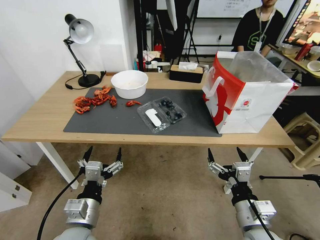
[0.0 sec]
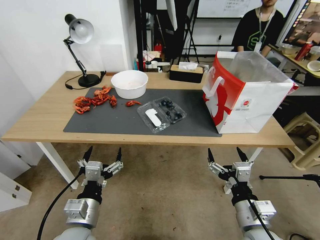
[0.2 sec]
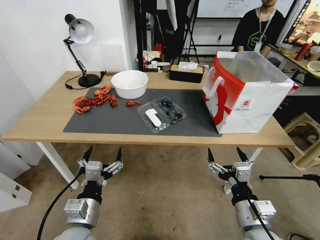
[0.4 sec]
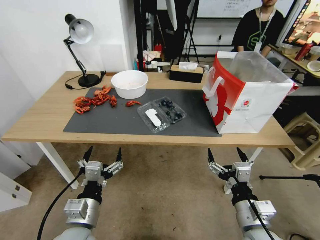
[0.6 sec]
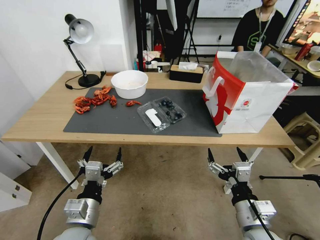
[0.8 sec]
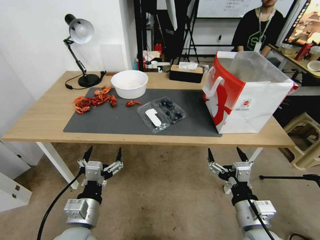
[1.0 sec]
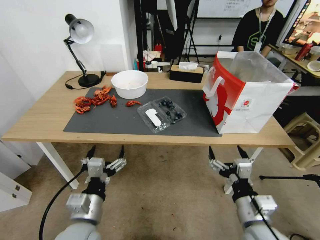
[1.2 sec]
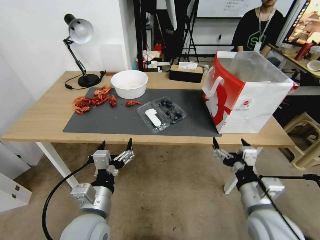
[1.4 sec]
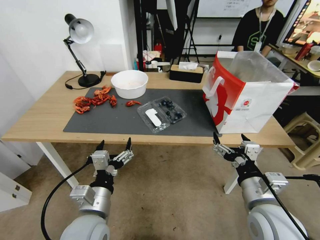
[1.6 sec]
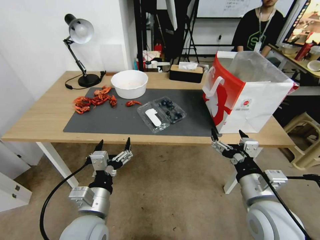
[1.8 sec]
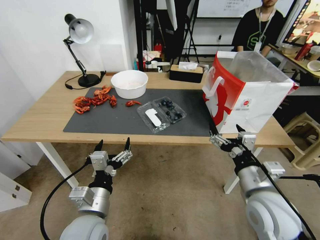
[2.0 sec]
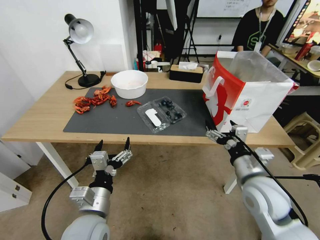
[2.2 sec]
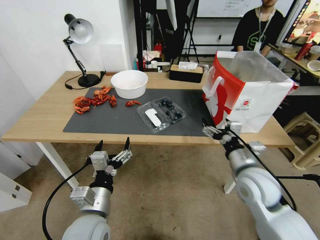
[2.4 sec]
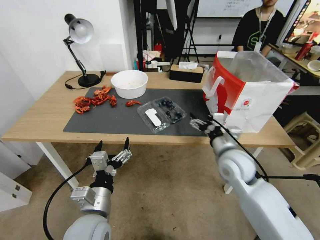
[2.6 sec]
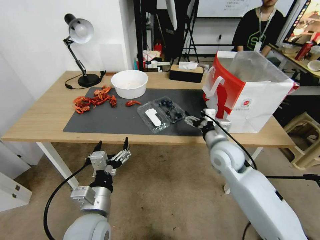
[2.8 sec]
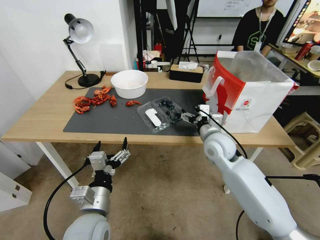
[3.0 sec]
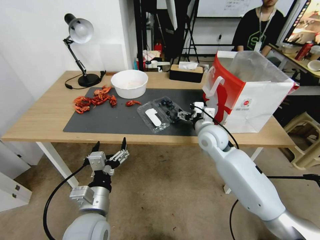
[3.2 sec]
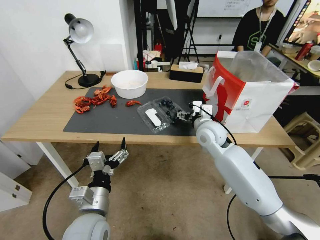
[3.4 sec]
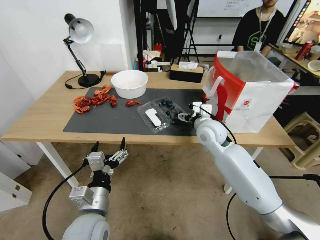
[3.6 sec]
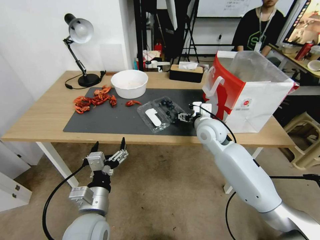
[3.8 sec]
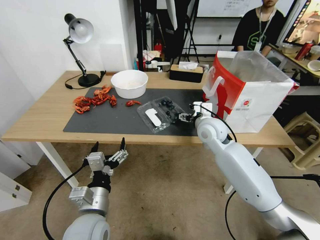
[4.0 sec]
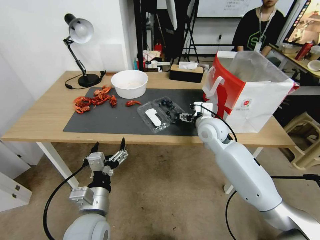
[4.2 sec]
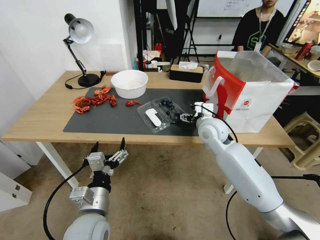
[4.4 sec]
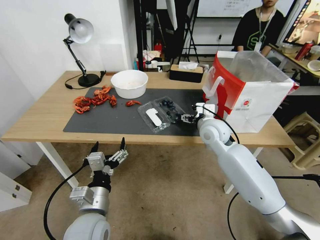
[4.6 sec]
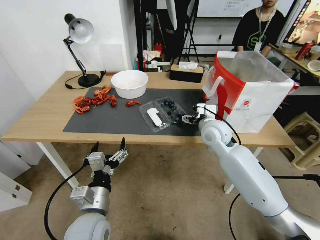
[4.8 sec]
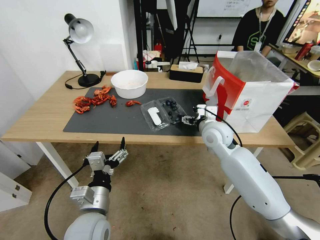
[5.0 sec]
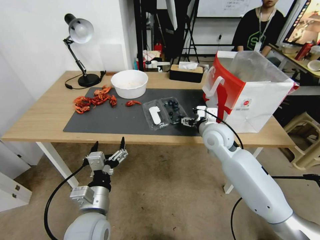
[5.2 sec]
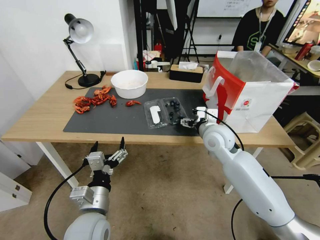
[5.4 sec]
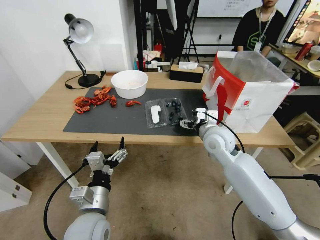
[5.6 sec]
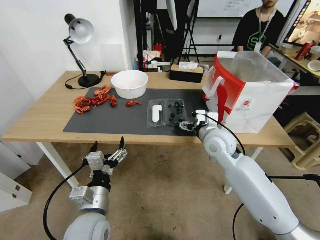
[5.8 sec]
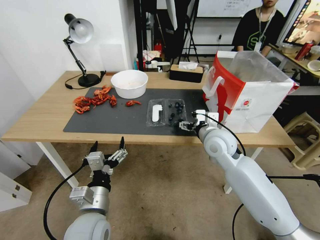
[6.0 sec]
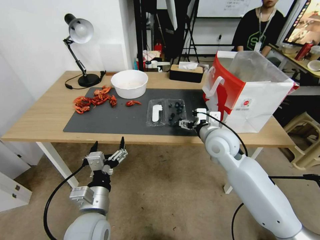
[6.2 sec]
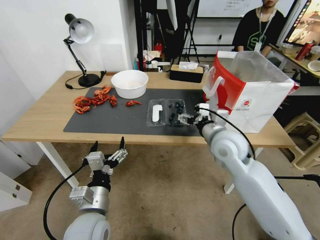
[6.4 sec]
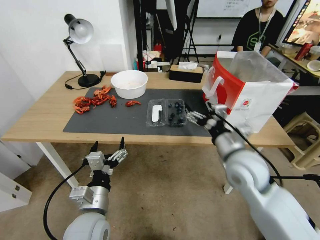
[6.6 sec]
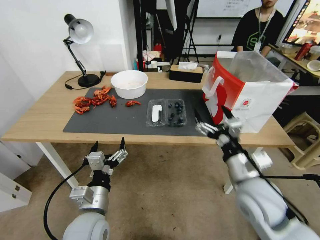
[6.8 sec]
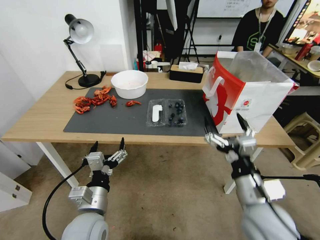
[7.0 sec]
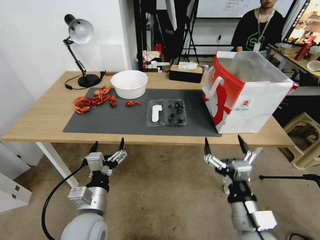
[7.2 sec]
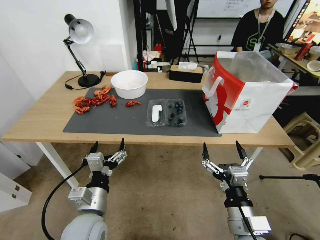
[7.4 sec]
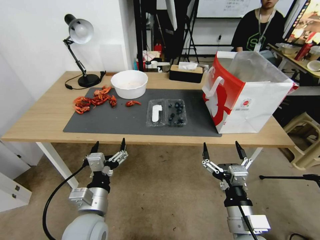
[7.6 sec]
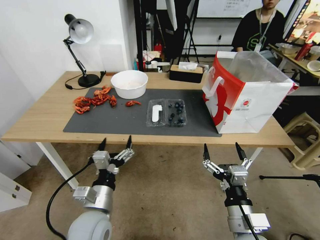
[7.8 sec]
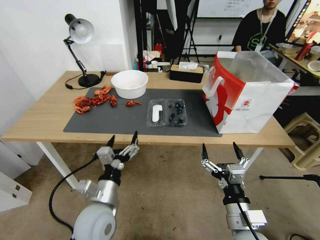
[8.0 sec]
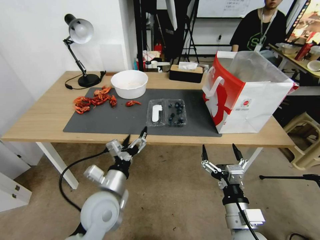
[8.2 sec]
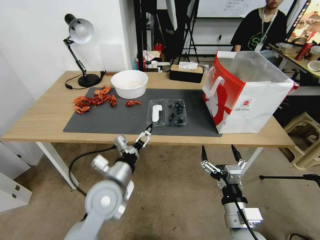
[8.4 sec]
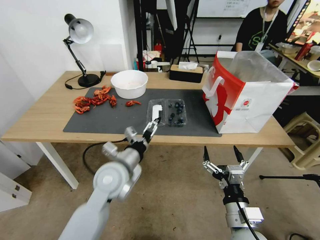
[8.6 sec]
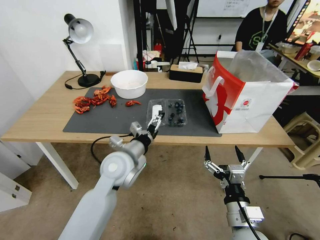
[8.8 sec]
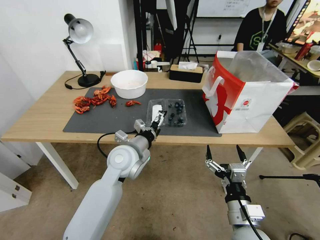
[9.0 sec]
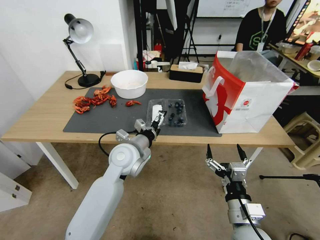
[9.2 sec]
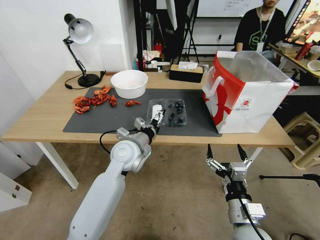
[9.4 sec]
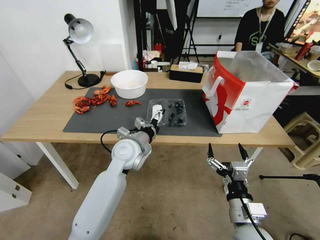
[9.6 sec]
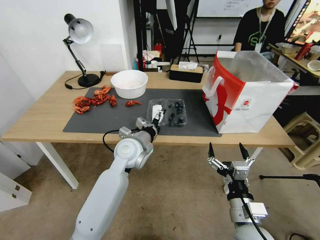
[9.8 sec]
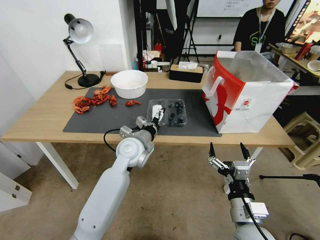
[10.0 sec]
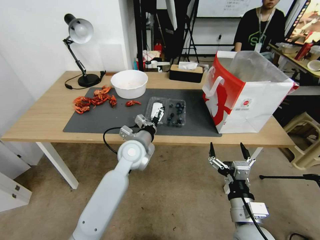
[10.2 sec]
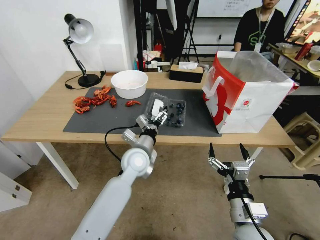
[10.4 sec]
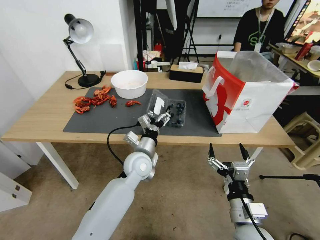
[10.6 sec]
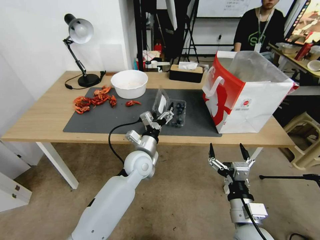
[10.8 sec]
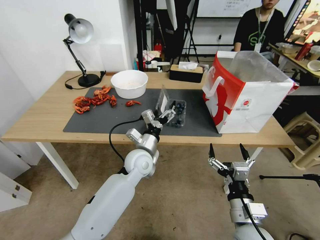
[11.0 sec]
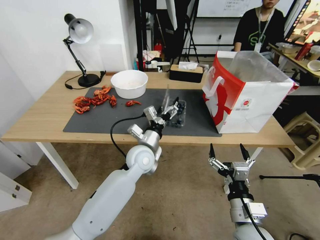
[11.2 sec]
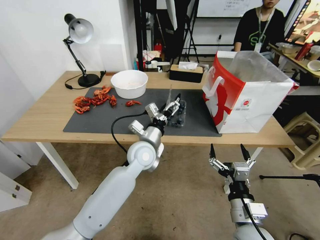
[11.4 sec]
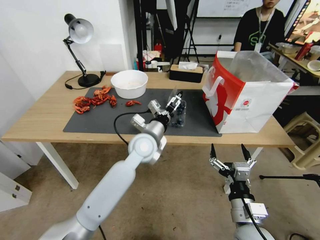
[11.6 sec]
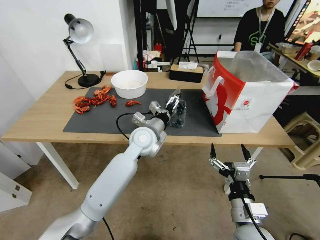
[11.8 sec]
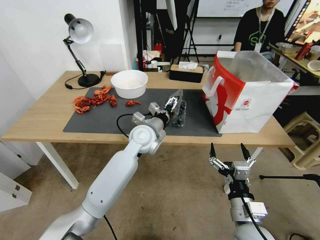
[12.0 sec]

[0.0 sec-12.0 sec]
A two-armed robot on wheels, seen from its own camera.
Task of the whole recording: Close the takeout container lid, then place the container into the takeout bag.
1.6 sec to 3.0 sec: The right gripper moves forward, roughly 20 cm.
3.0 sec to 4.4 sec: The right gripper travels forward by about 5 cm.
4.4 sec to 6.0 sec: The right gripper is displaced backward by approximately 5 cm.
6.0 sec to 7.6 sec: The right gripper heads backward, covering roughly 25 cm.
7.6 sec to 9.0 sec: The left gripper goes approximately 20 cm forward and to the right.
9.0 sec to 10.4 sec: The left gripper changes place by about 5 cm.
10.4 sec to 12.0 sec: The left gripper moves forward, roughly 5 cm.

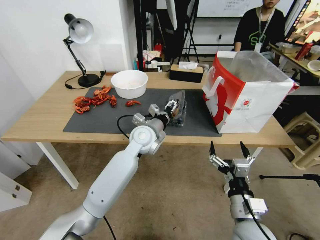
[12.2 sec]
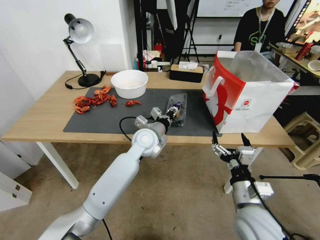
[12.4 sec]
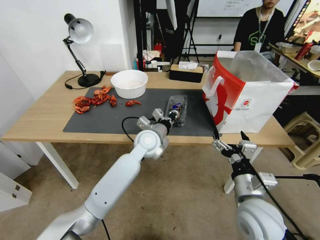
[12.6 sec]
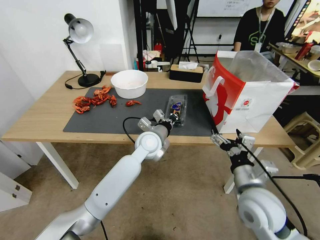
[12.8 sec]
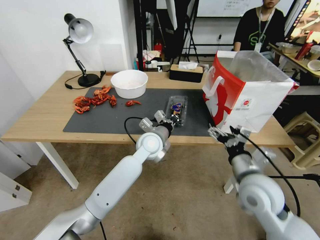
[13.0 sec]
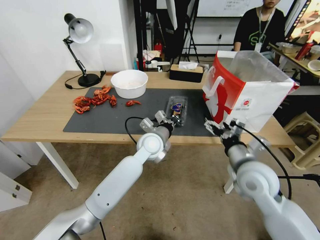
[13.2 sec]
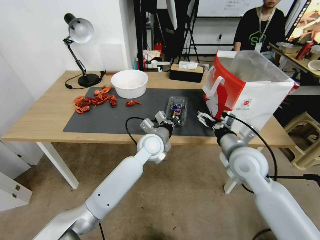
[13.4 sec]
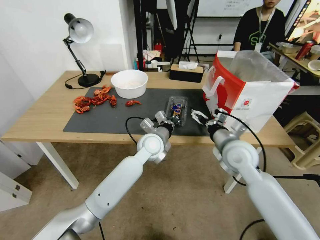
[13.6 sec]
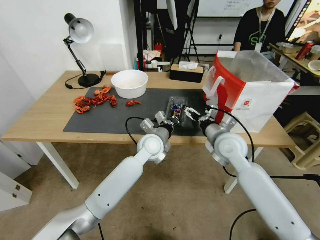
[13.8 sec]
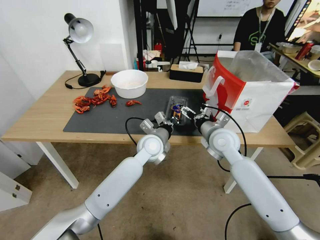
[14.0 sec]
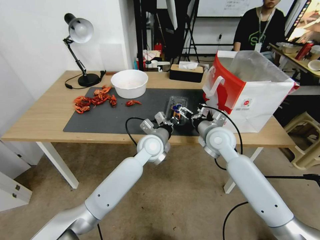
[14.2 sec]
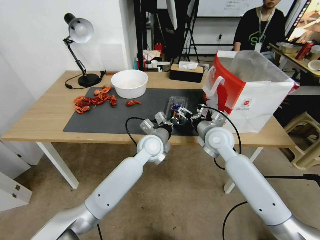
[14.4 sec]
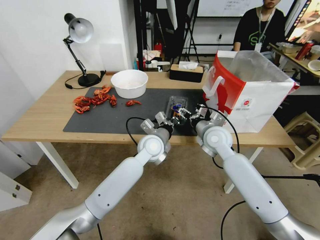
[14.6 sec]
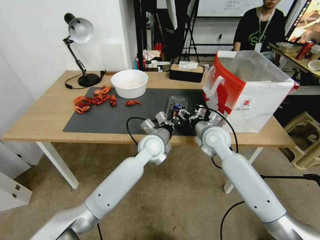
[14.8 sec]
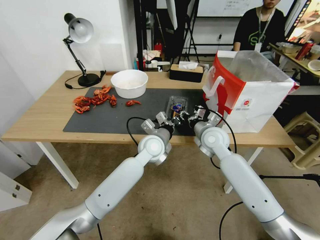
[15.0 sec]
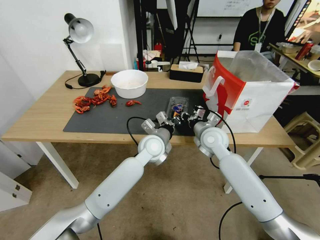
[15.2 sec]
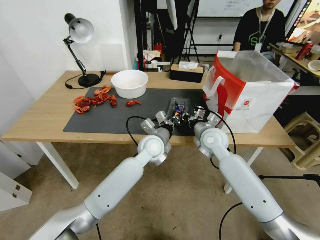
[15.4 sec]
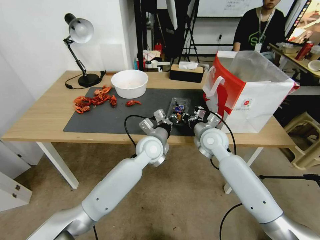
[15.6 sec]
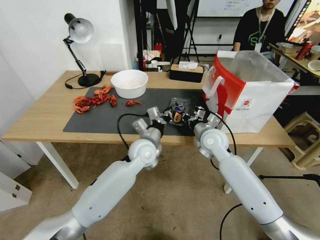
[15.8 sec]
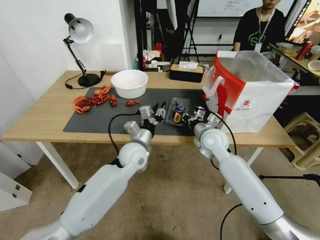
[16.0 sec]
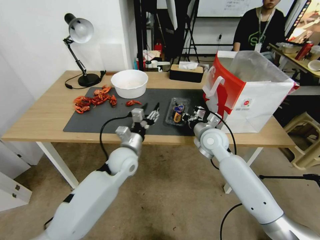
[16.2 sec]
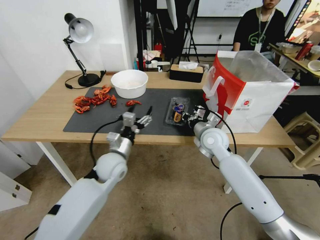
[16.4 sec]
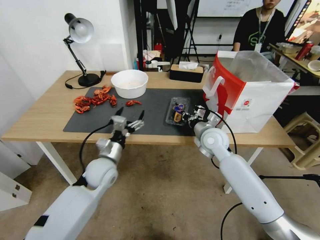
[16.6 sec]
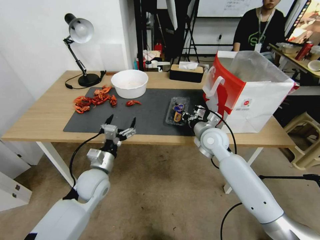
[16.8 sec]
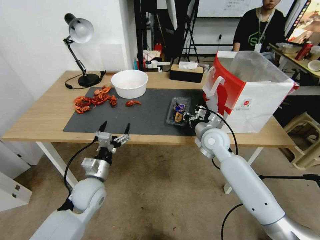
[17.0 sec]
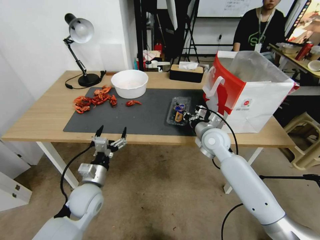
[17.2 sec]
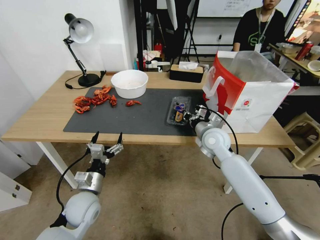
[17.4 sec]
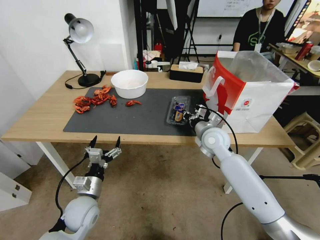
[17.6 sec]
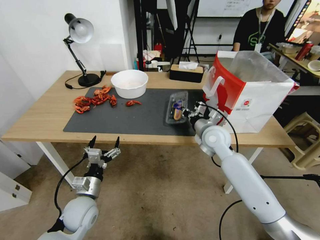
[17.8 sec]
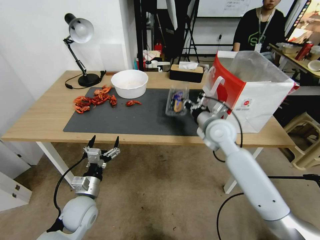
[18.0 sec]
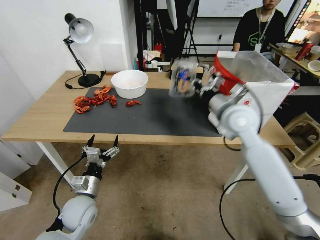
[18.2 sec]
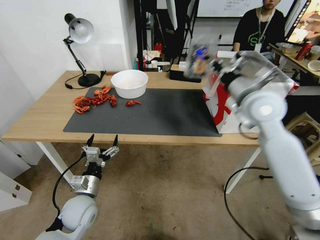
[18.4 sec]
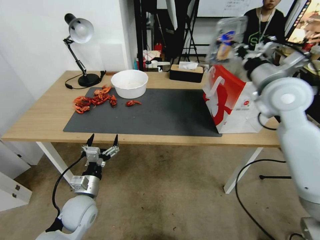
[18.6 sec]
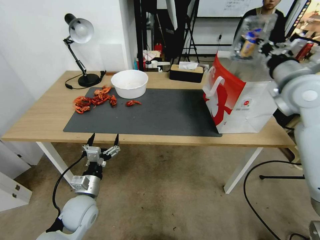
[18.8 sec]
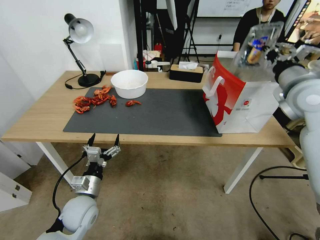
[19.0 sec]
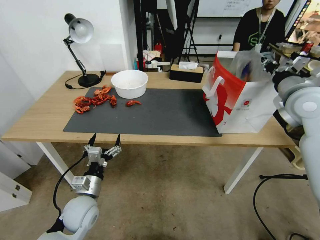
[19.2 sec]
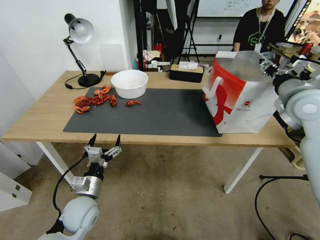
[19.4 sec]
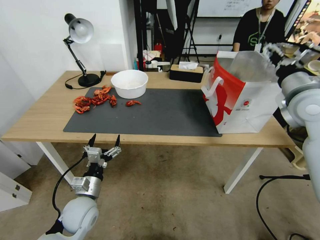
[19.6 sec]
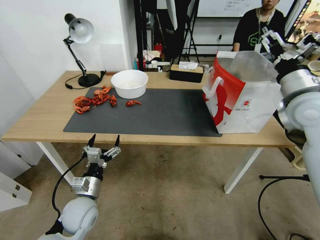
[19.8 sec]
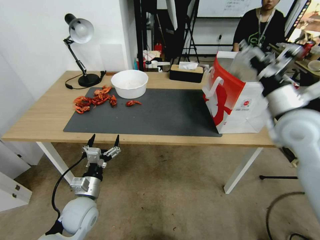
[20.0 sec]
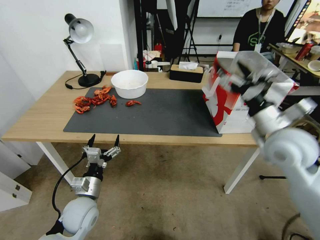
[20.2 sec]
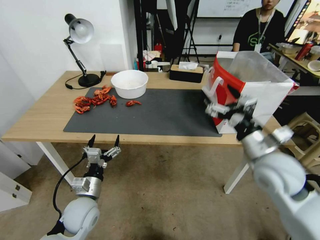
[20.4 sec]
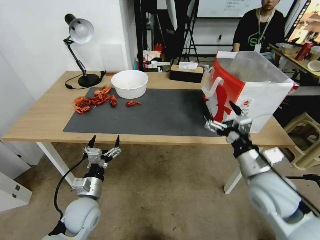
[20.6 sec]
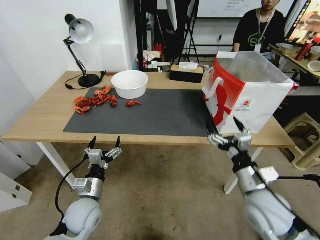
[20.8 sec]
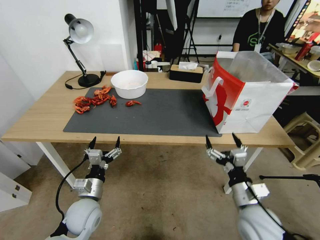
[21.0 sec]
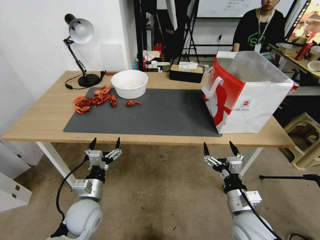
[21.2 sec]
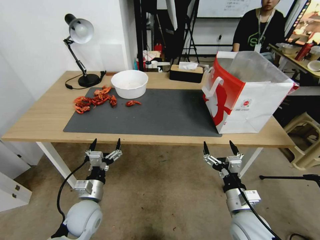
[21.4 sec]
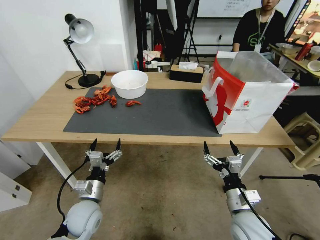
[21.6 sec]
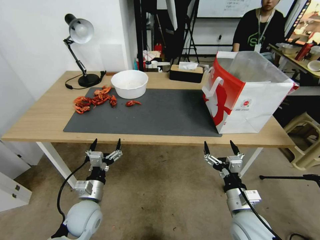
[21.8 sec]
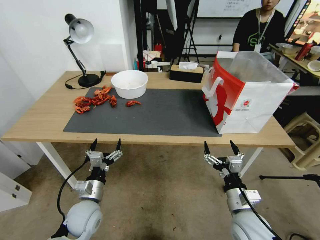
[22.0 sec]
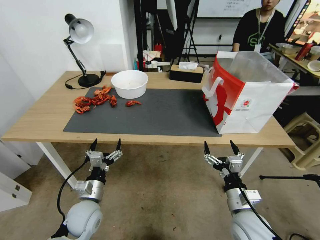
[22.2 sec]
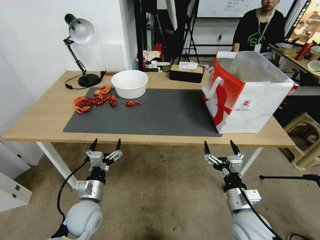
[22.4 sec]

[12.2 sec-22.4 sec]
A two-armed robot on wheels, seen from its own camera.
Task of the whole recording: Close the takeout container lid, then place the container into the takeout bag.
12.2 sec to 13.6 sec: The right gripper shifts about 20 cm forward and upward. The left gripper closes.
13.6 sec to 15.2 sec: The right gripper is displaced forward by about 10 cm, and closes.
15.2 sec to 16.6 sec: The left gripper is displaced to the left and backward by approximately 20 cm, and opens up.
16.6 sec to 18.0 sec: The right gripper heads upward, covering roughly 5 cm. Meanwhile the left gripper is displaced backward and downward by roughly 10 cm.
18.0 sec to 19.4 sec: The right gripper goes roughly 20 cm to the right and upward, and opens.
19.4 sec to 21.0 sec: The right gripper is displaced downward, backward and to the left by roughly 35 cm, and opens up.
21.0 sec to 22.4 sec: The grippers move only a little.
